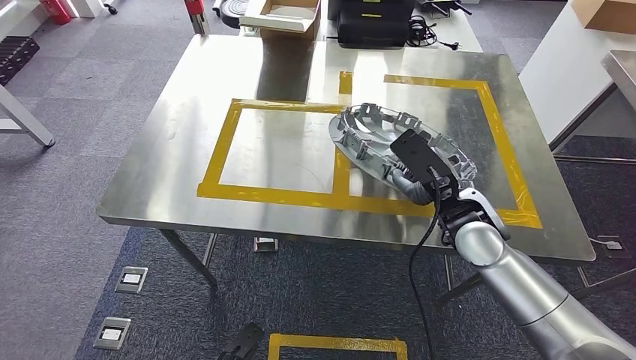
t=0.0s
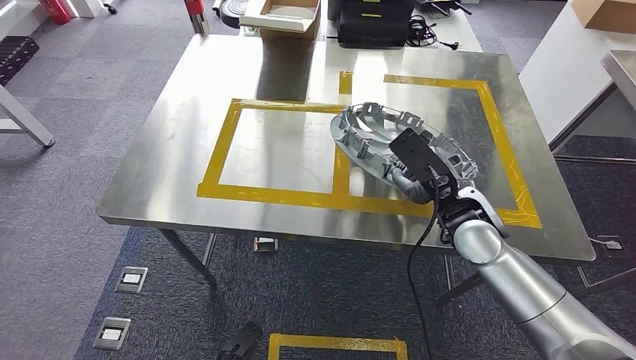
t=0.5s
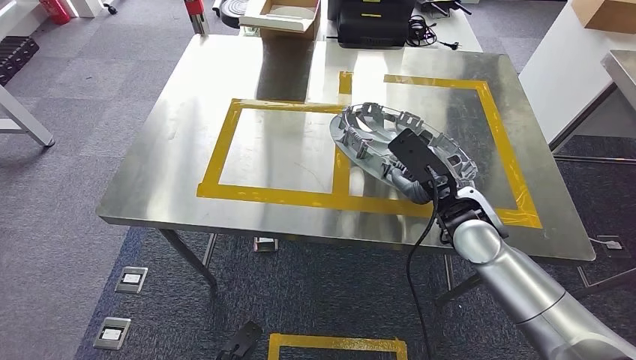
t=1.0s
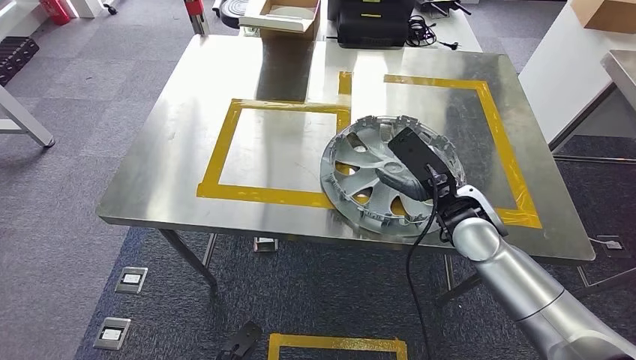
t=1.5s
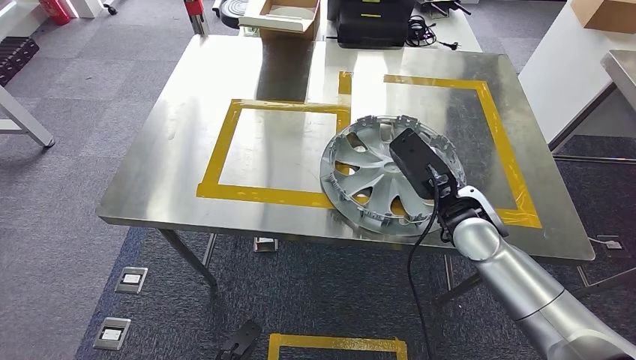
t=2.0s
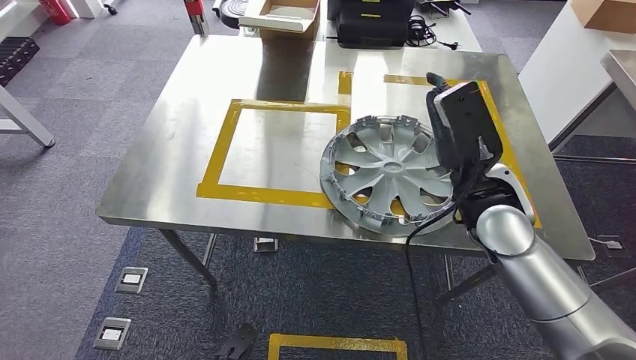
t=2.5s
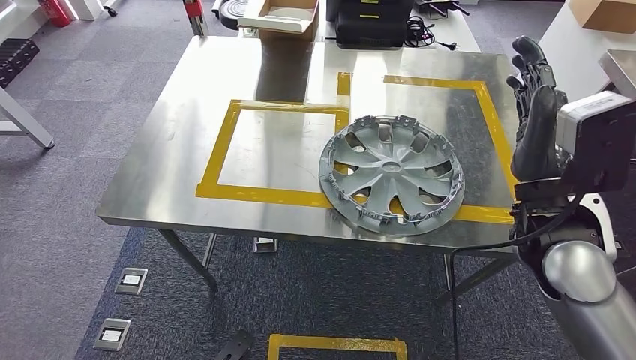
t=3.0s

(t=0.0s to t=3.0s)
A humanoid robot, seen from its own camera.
Step, t=0.0s - t=3.0s: Insert the large material into the corresponding slot on the workbench.
t=0.0s - t=1.5s: Both hands stay put.
t=1.5s - t=3.0s: The right hand shifts some 10 cm upward.
